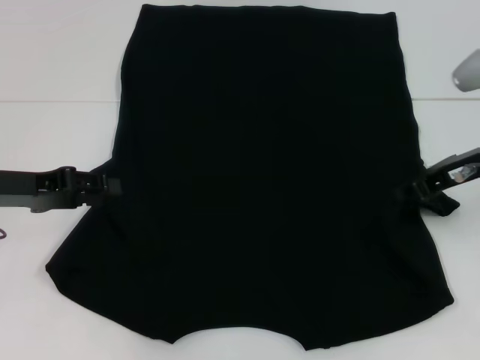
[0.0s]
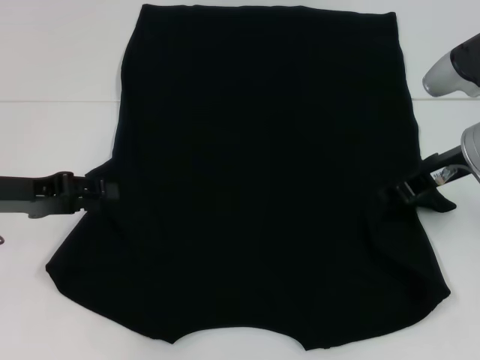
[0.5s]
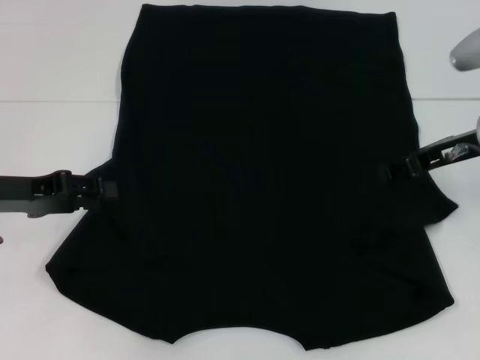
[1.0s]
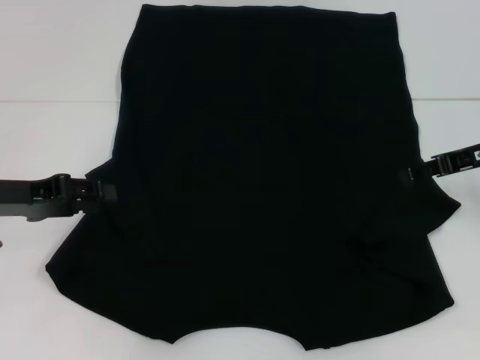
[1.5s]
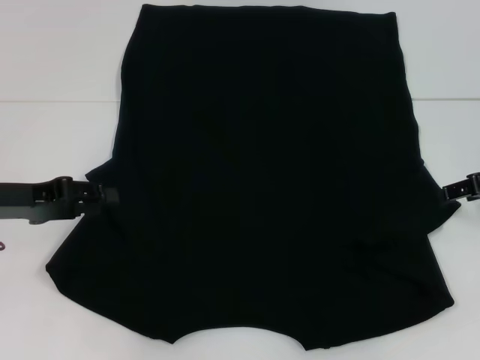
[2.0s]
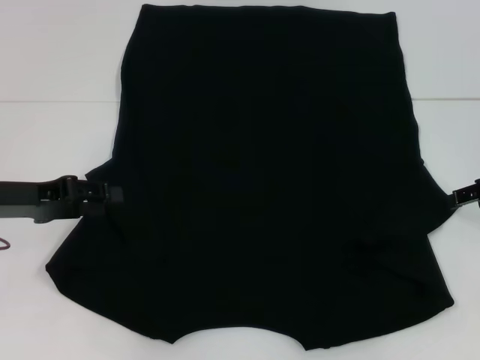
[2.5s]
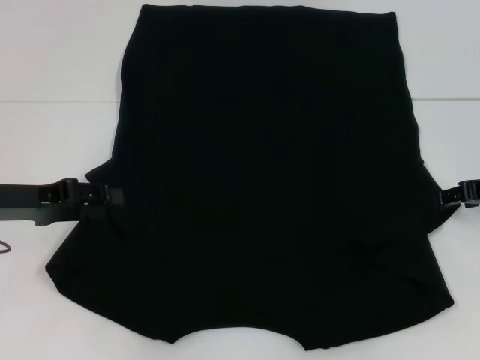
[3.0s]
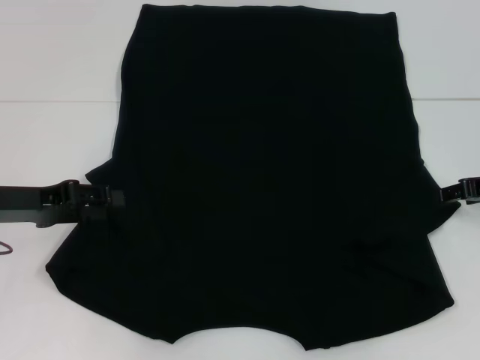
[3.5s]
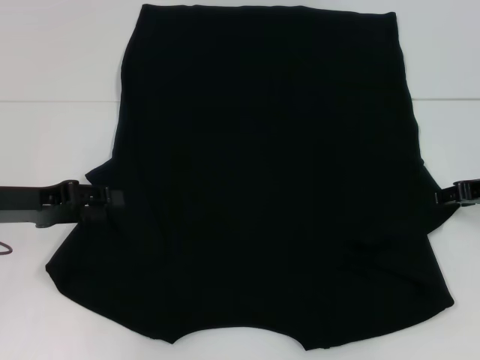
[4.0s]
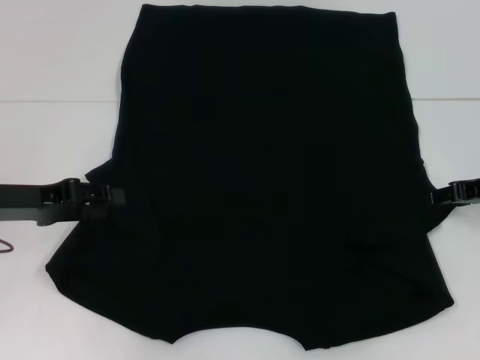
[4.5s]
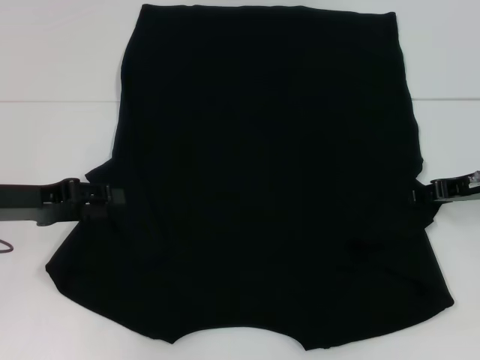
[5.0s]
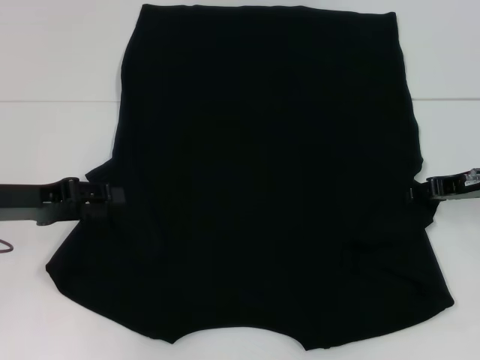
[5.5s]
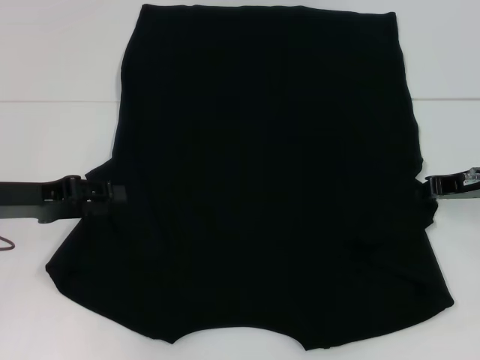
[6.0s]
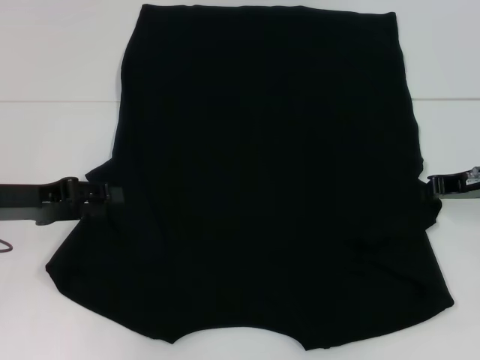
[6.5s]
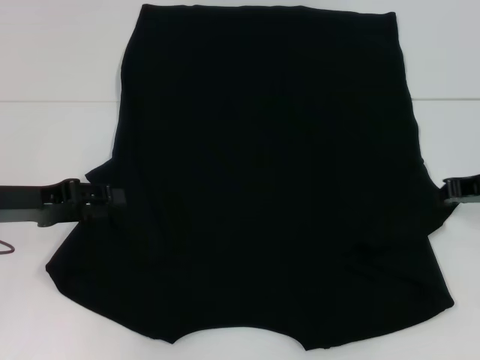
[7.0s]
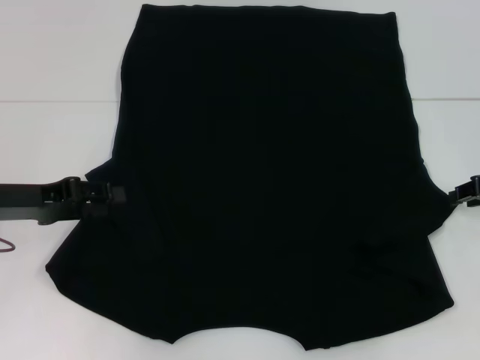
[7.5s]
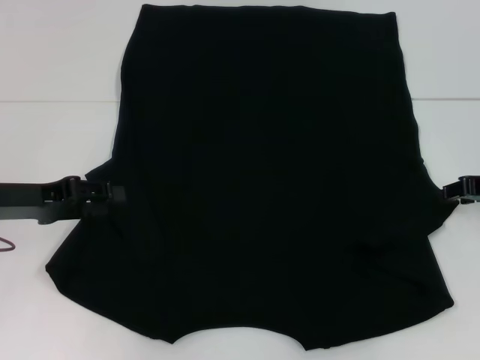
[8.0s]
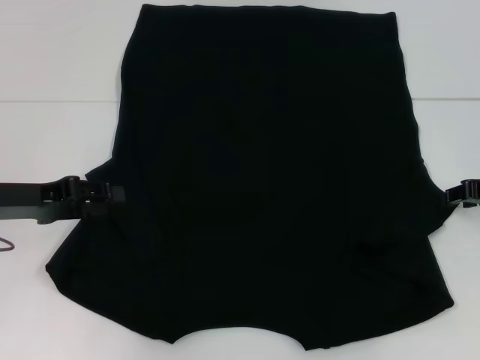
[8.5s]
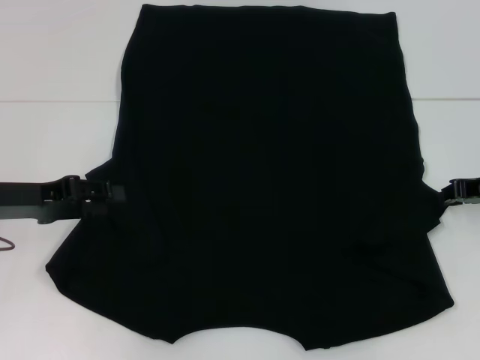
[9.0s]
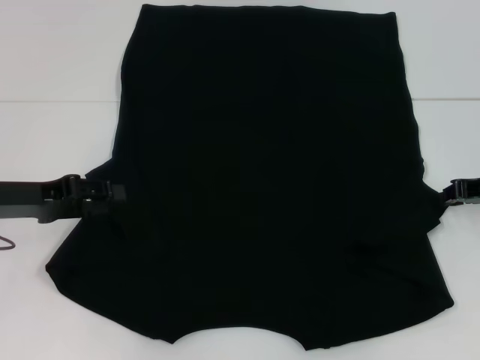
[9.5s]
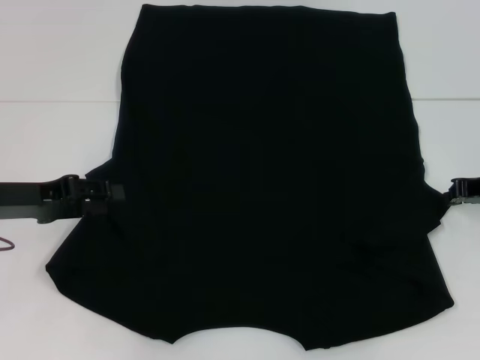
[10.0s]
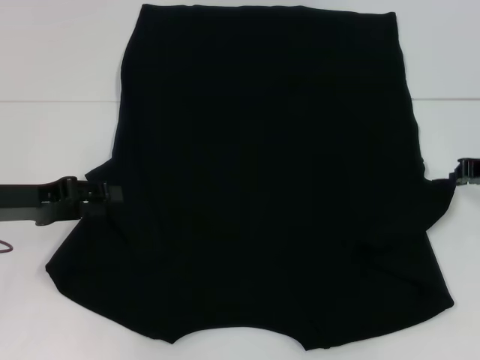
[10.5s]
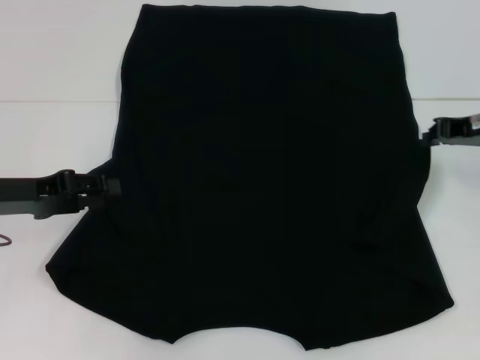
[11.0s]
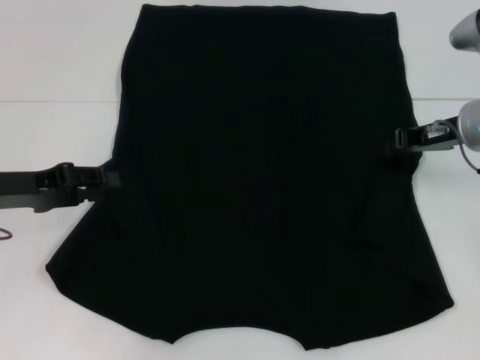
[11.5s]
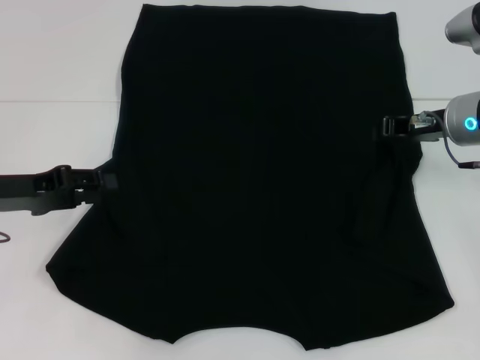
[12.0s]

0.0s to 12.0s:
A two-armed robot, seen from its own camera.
Step, 0.0s to 11.5s: Fold the bottom right sleeve with your right hand.
0.0s to 2.0s: The right gripper shifts roughly 5 cm to the right, and opens up.
2.0s to 4.0s: The grippers stay close to where they were, moving slightly.
4.0s to 6.0s: The right gripper closes.
6.0s to 8.0s: The grippers make only small movements.
10.0s to 12.0s: The right gripper goes some 10 cm to the left.

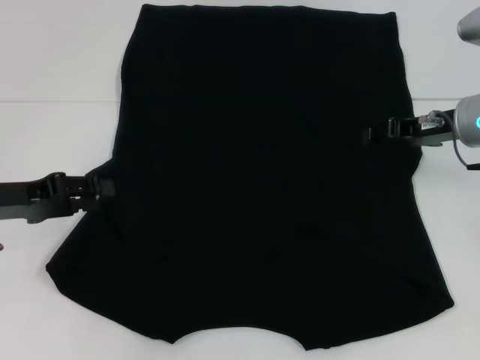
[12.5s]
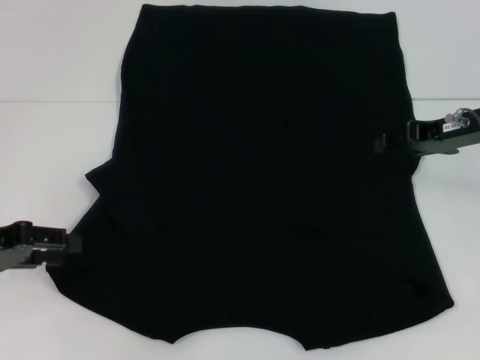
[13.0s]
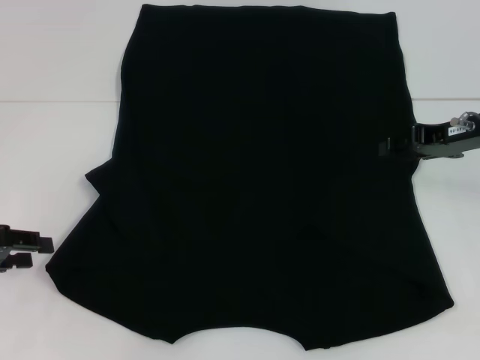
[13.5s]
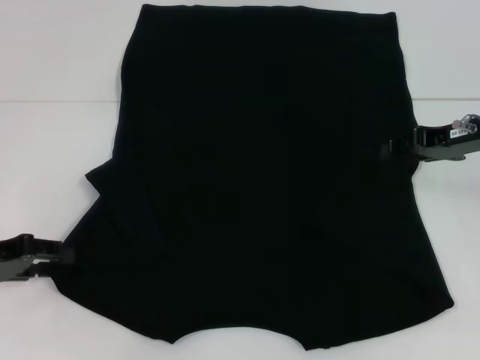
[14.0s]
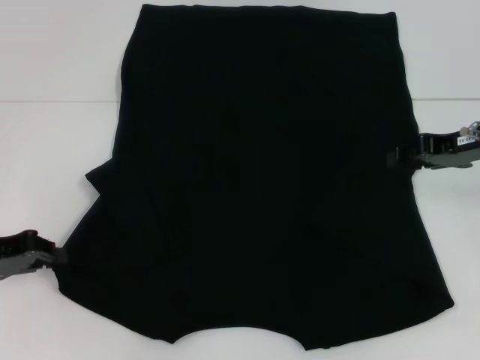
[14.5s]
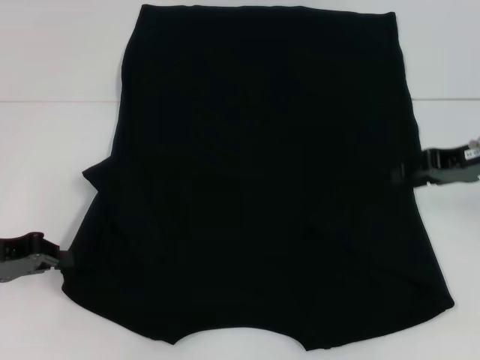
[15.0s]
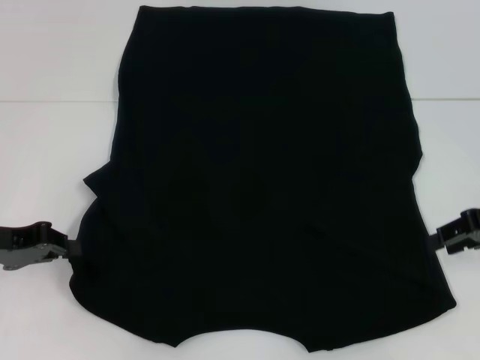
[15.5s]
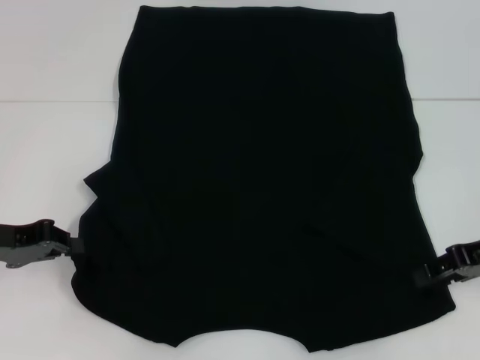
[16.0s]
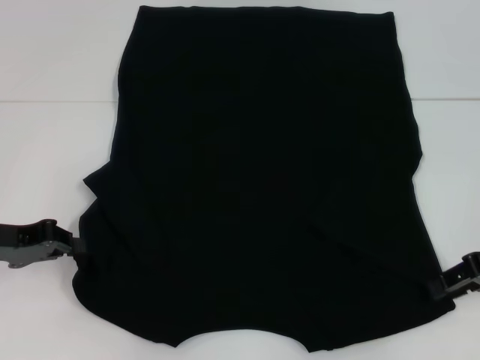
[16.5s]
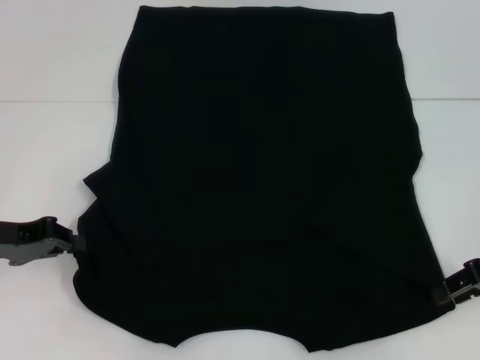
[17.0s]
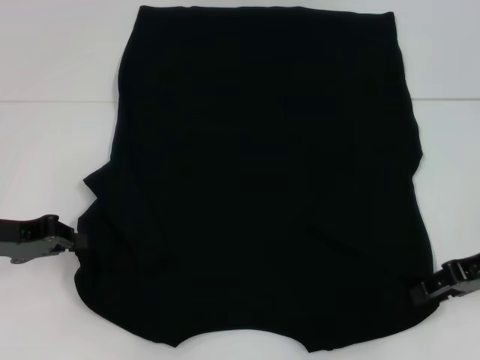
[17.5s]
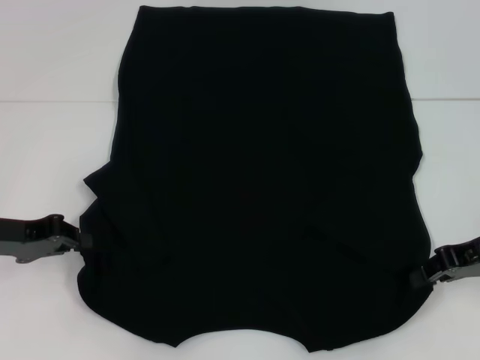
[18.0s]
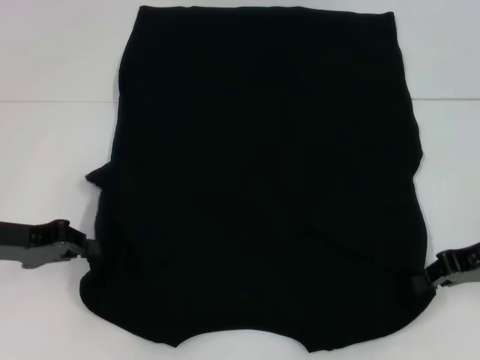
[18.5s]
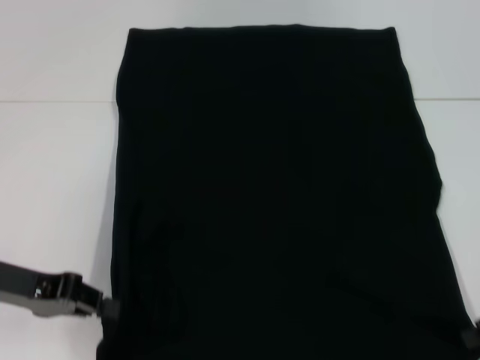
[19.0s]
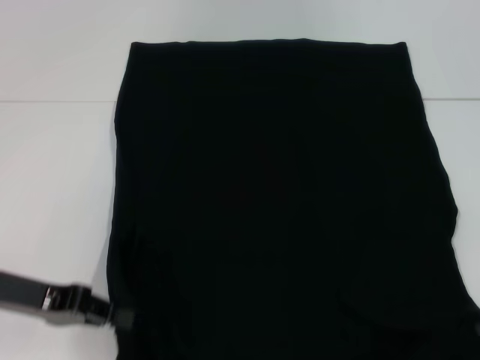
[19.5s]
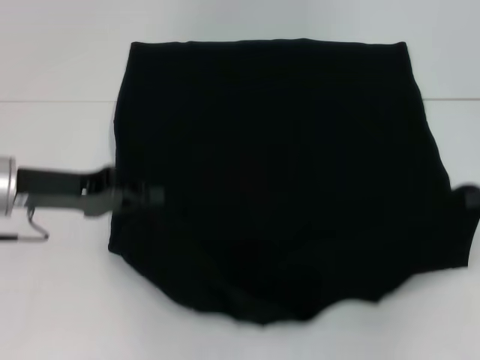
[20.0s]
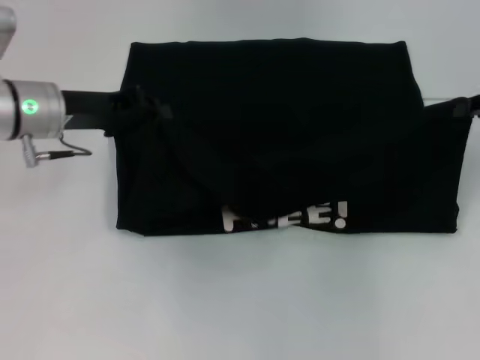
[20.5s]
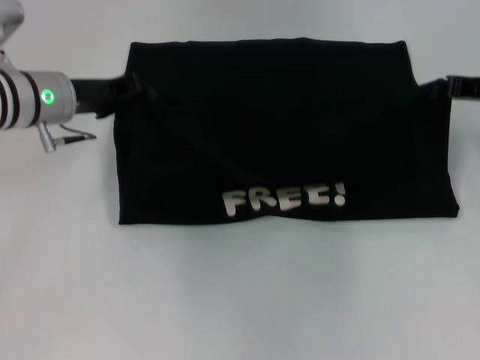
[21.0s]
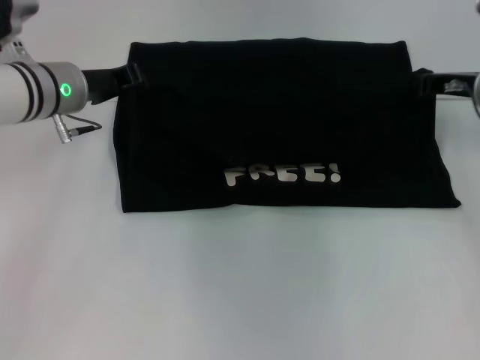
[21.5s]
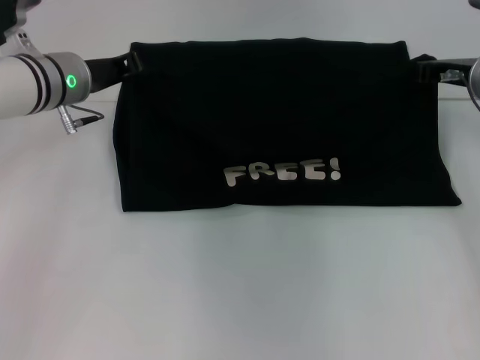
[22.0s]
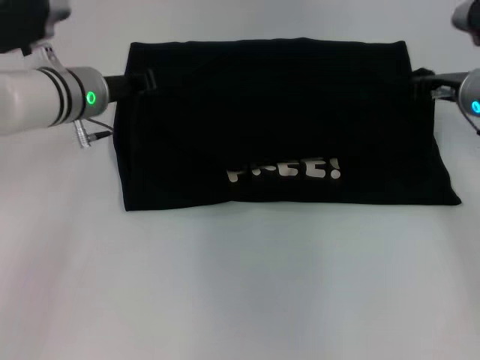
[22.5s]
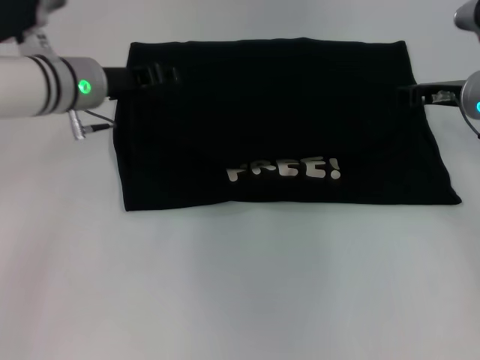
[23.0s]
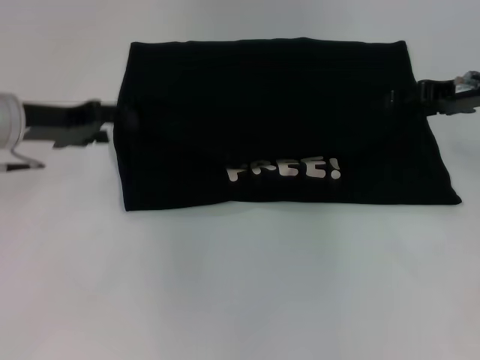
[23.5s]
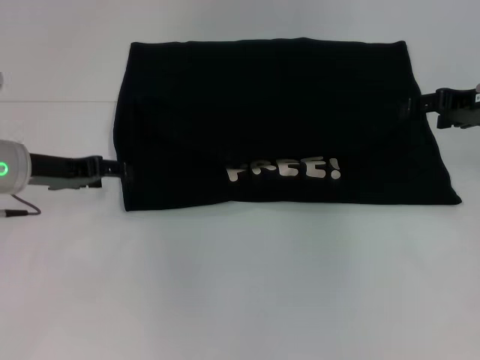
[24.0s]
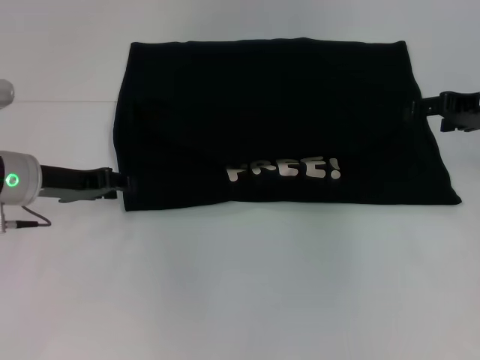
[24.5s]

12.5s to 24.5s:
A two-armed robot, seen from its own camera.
Step, 12.5s to 14.5s: Grab the bottom left corner with your left hand.
Step, 15.0s to 18.5s: Grab the bottom right corner with your right hand.
Step, 19.0s to 23.0s: Fold the clothes with your left hand.
Step, 19.0s to 23.0s: Fold the clothes with your right hand.
12.5s to 14.5s: The grippers move only a little.
14.5s to 16.5s: The left gripper closes; the right gripper is displaced backward by roughly 5 cm.
16.5s to 18.5s: The right gripper closes its fingers.
18.5s to 20.5s: The right gripper is displaced upward and forward by about 10 cm. Meanwhile the left gripper heads forward, to the right and upward, covering approximately 15 cm.
20.5s to 22.5s: The left gripper shifts by roughly 5 cm. The right gripper travels to the left, forward and downward by roughly 10 cm.
22.5s to 24.5s: The right gripper moves to the right, about 5 cm, and opens up. The left gripper goes approximately 10 cm to the left and backward, and opens its fingers.

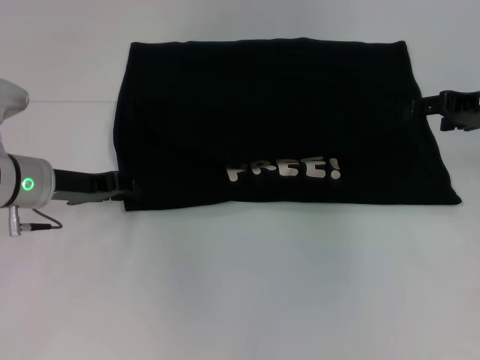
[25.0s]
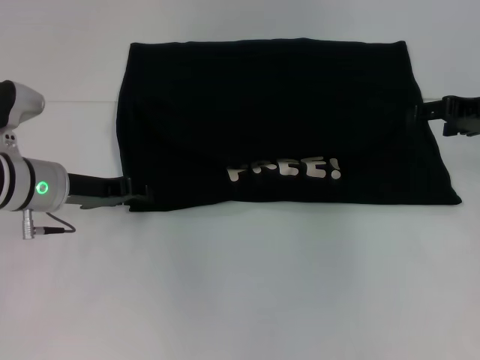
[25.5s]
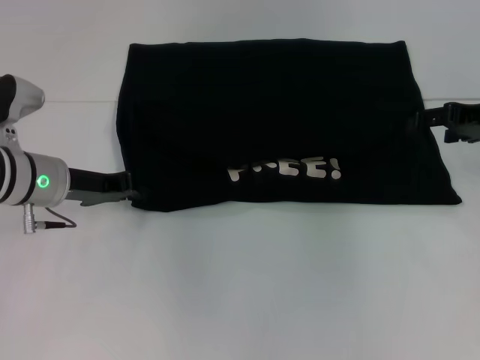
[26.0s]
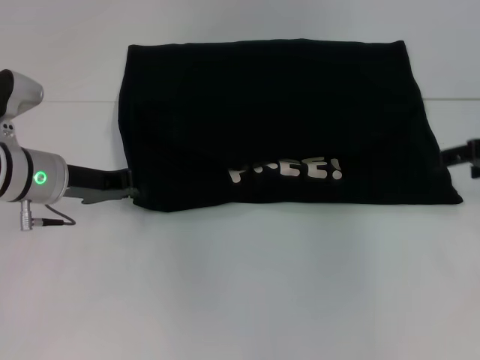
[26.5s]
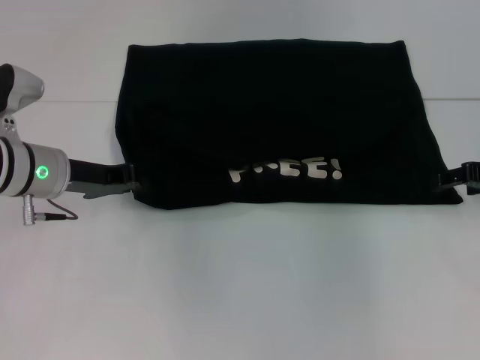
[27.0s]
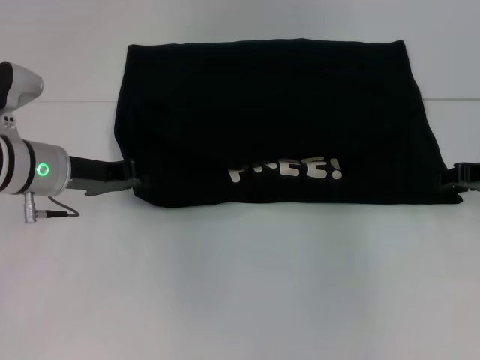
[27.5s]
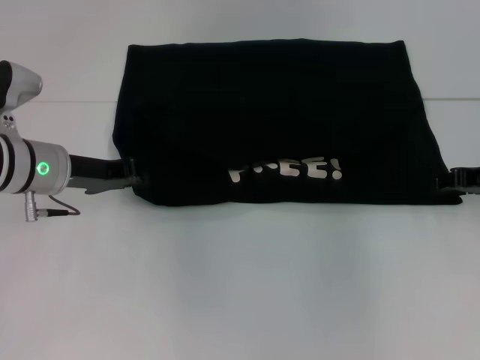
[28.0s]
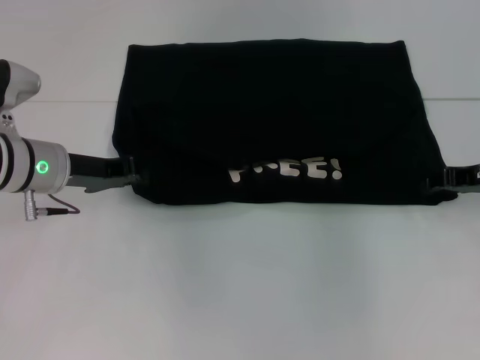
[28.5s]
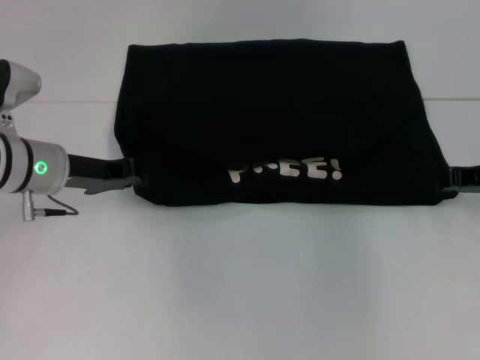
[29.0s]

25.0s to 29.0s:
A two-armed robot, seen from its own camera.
25.0s to 27.0s: The right gripper changes place by roughly 5 cm. The left gripper closes.
27.0s to 29.0s: The right gripper closes its fingers.
